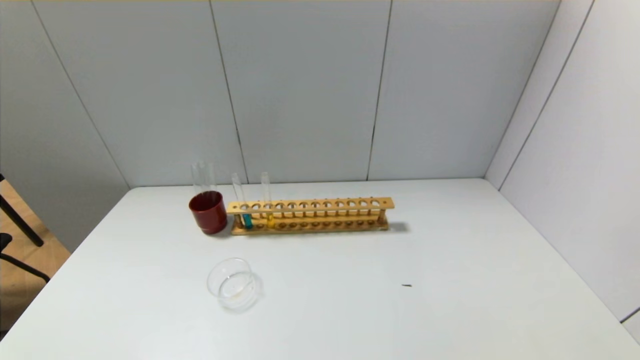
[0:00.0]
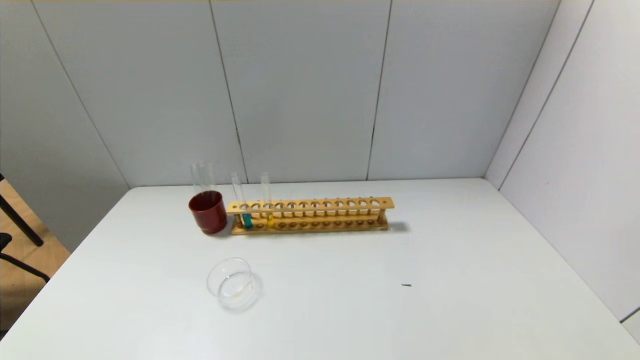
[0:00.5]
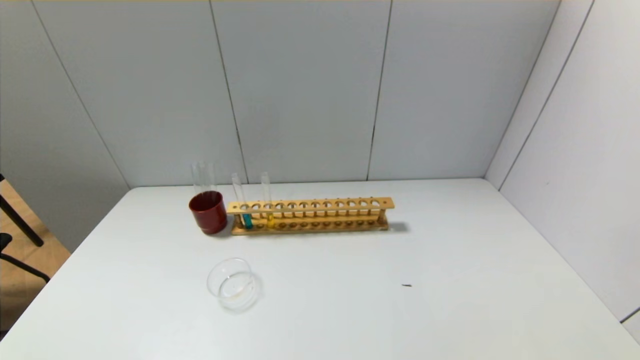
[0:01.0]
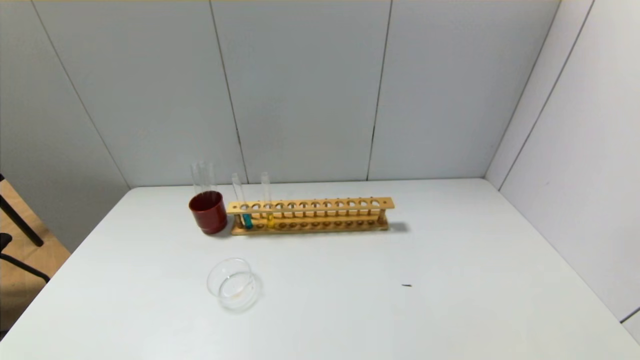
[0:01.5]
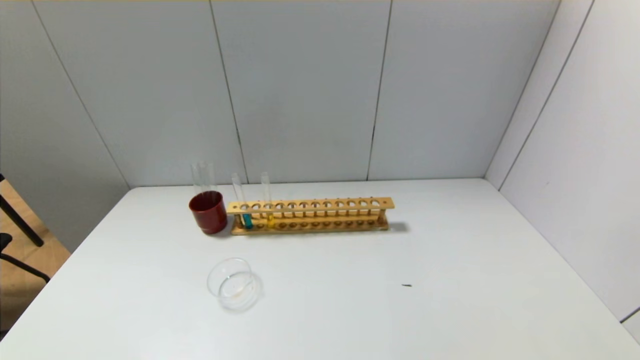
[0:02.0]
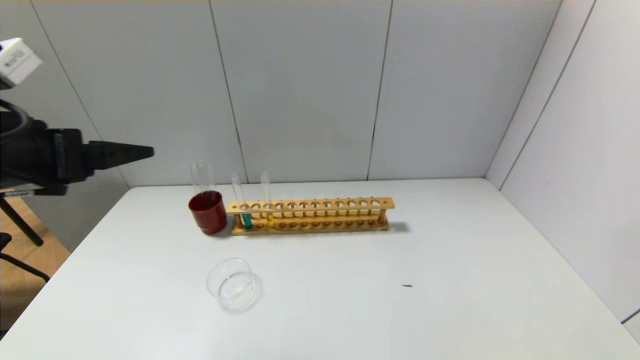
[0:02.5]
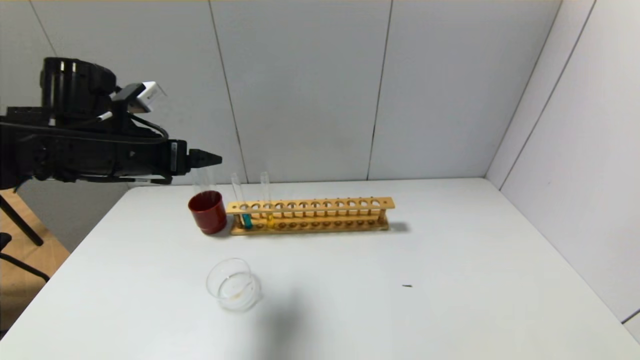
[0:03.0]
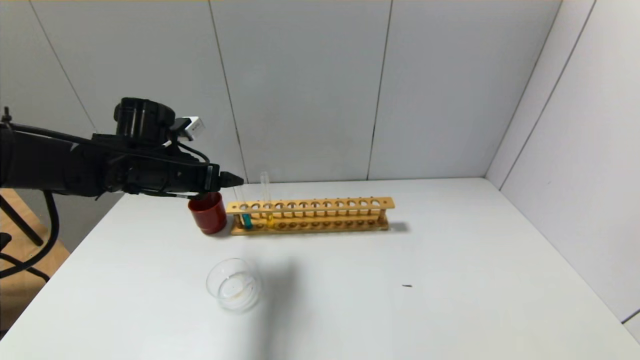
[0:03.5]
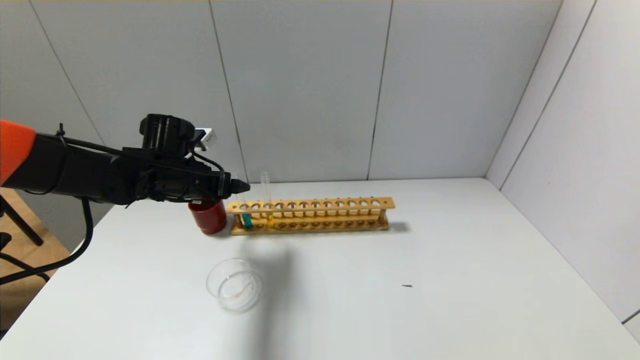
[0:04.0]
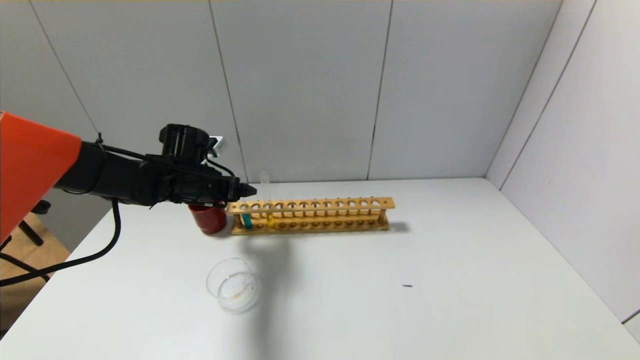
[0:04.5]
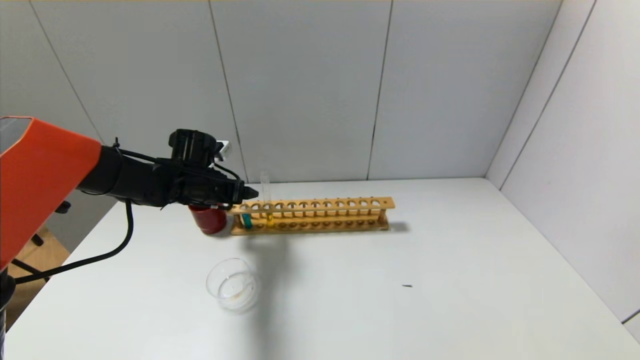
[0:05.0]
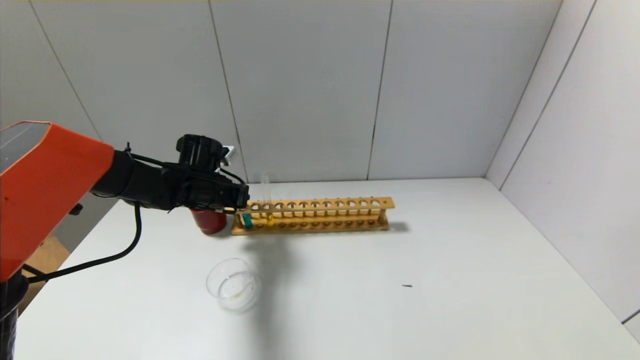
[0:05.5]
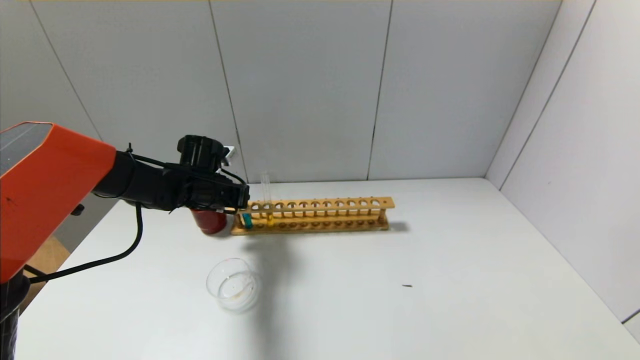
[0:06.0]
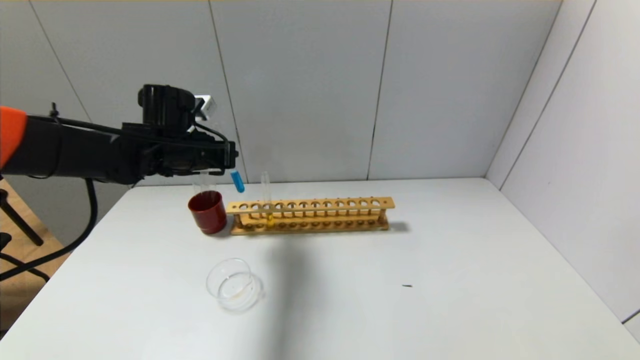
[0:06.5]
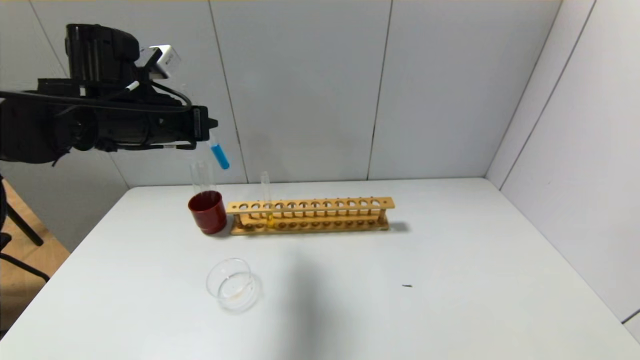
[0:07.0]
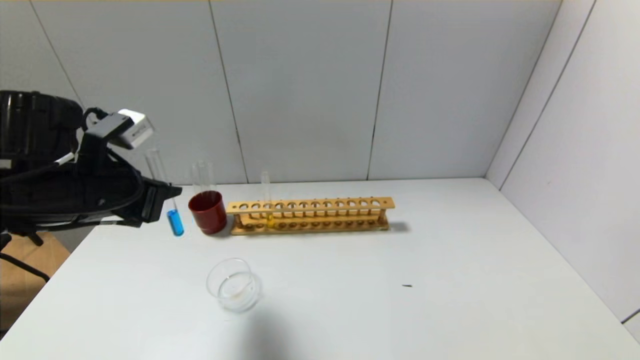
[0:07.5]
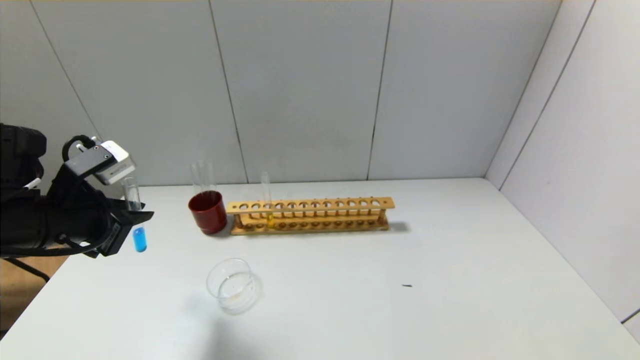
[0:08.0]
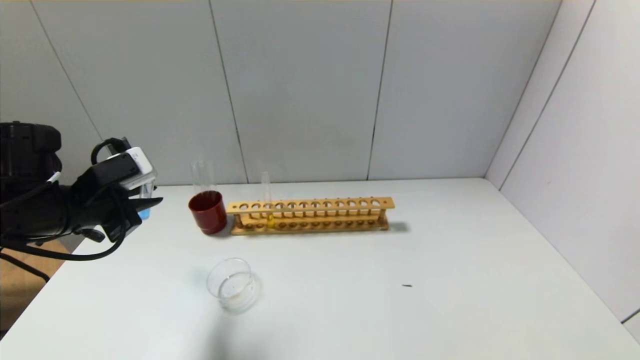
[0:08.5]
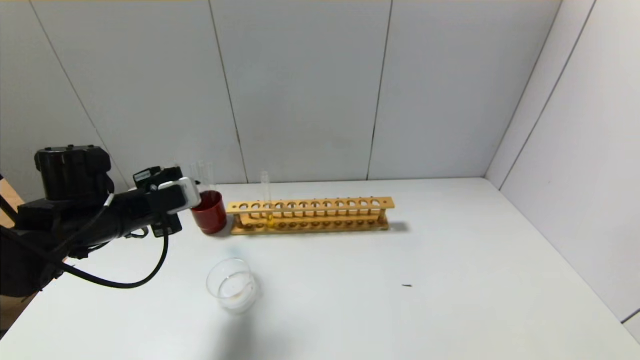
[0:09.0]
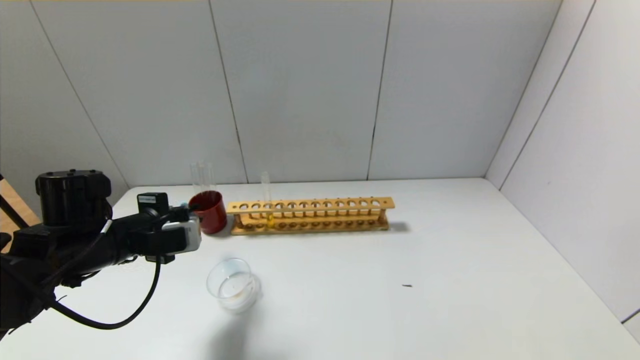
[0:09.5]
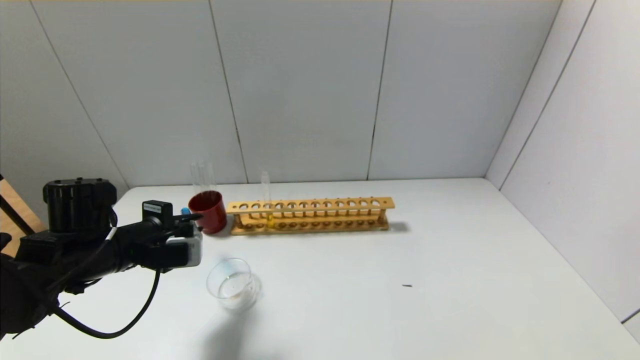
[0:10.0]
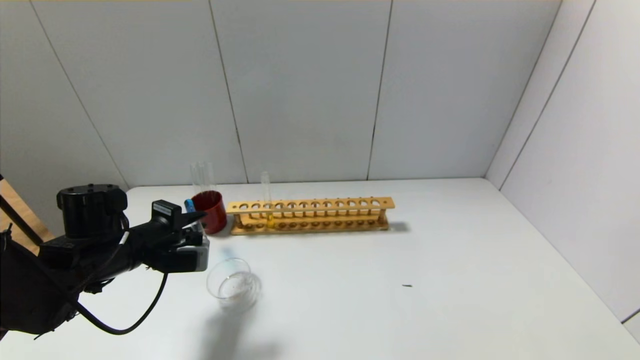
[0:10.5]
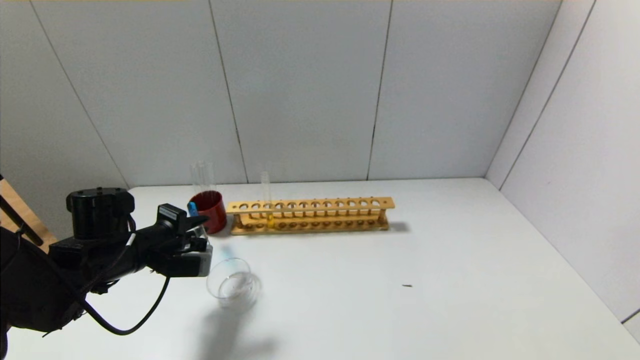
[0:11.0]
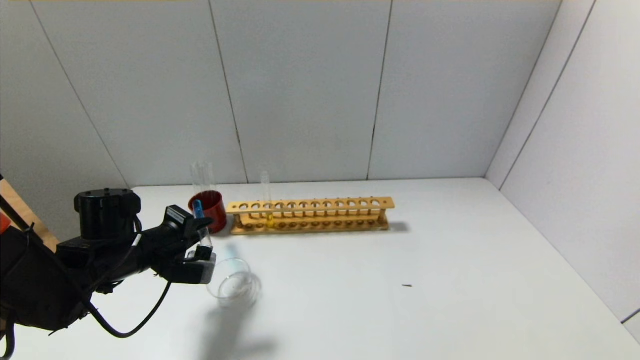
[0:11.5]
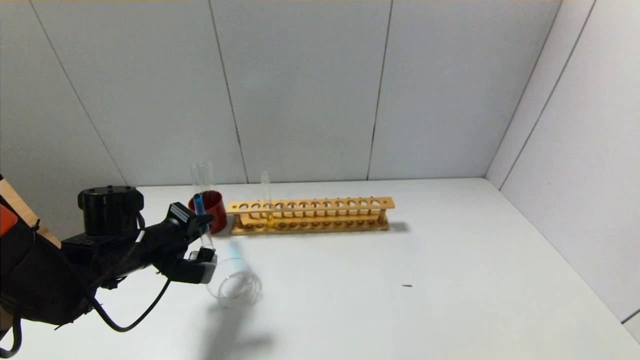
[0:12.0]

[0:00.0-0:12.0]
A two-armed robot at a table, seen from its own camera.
Step, 0:00.0 to 0:05.5: Grasp the blue reagent with the left gripper.
0:02.0 to 0:04.0: The left gripper goes approximately 40 cm forward.
0:04.0 to 0:06.0: The left gripper travels downward by about 5 cm, and closes.
0:06.0 to 0:08.0: The left gripper heads backward, to the left and upward, covering approximately 25 cm.
0:08.0 to 0:10.0: The left gripper travels downward by approximately 10 cm.

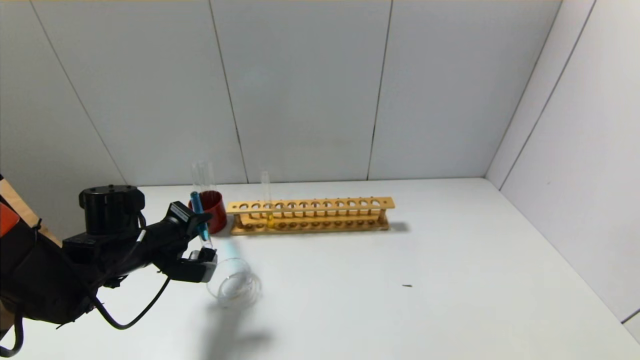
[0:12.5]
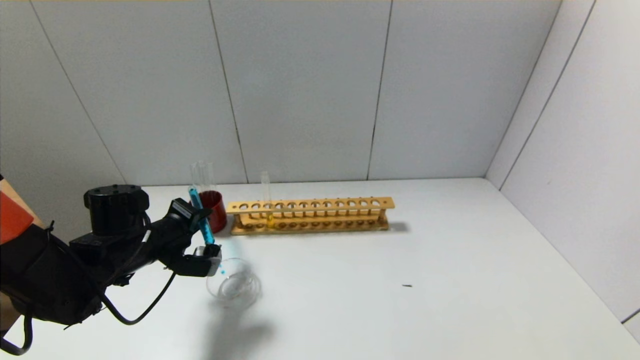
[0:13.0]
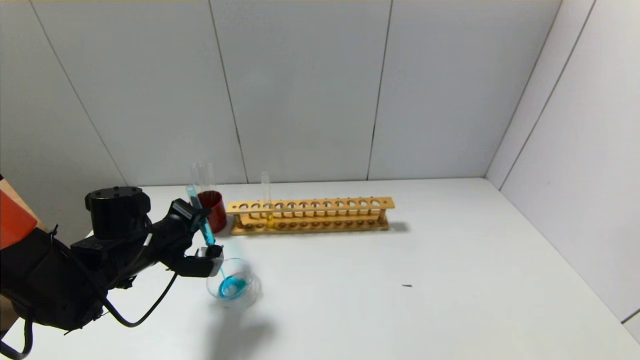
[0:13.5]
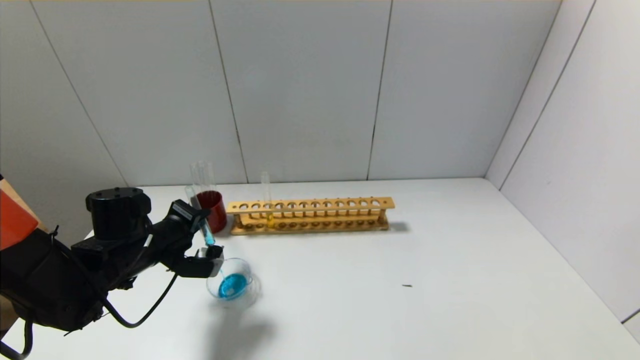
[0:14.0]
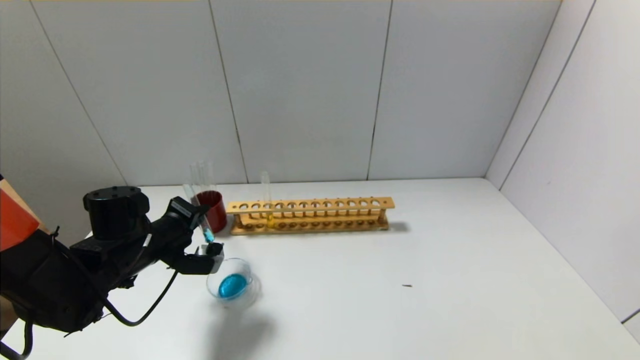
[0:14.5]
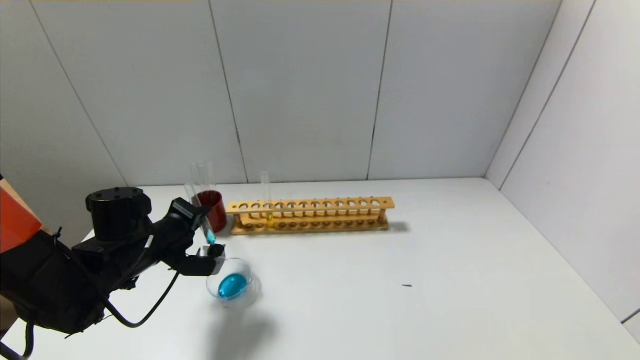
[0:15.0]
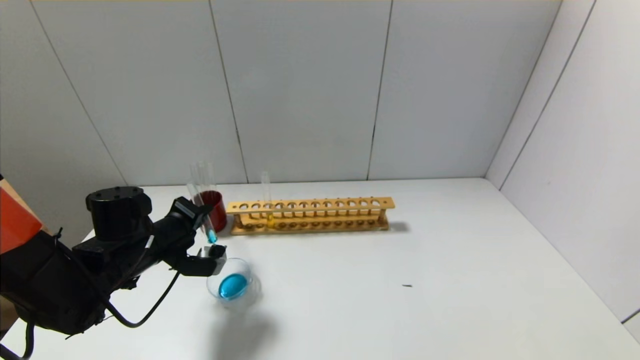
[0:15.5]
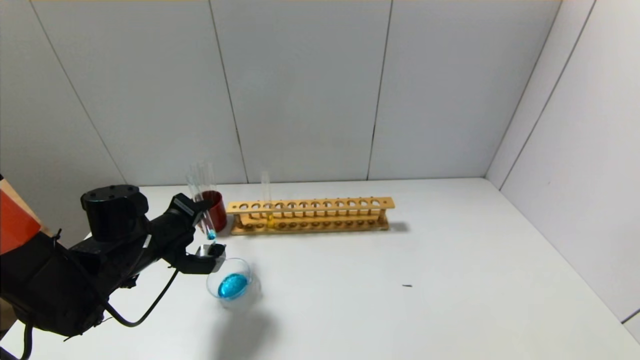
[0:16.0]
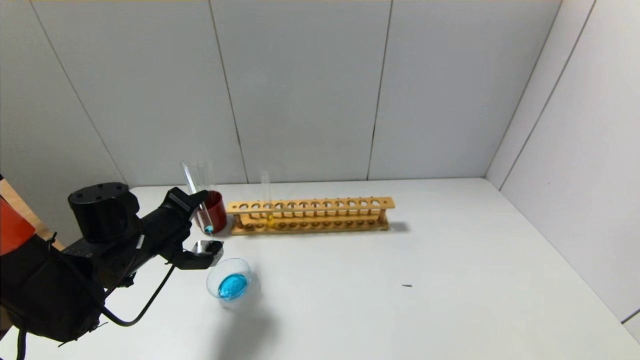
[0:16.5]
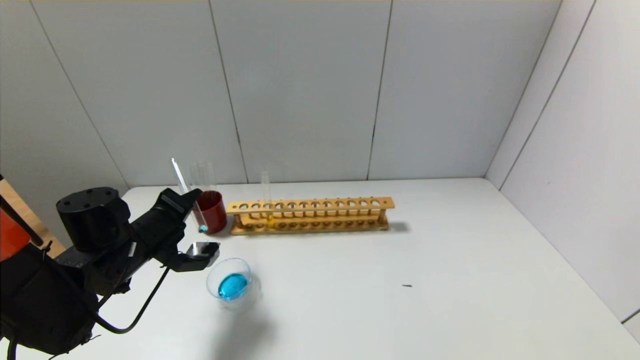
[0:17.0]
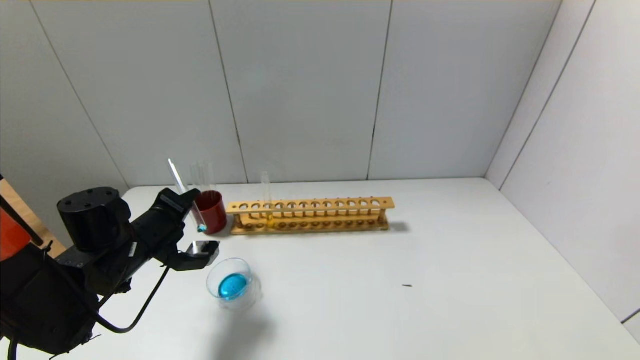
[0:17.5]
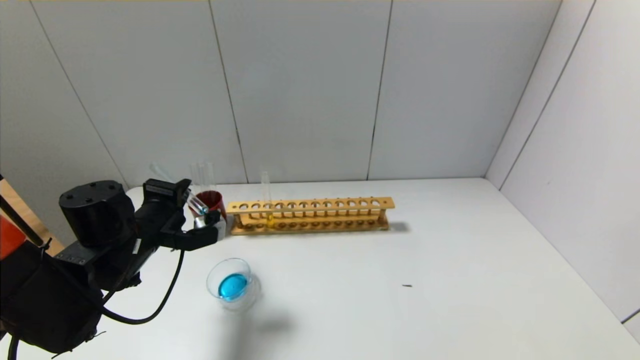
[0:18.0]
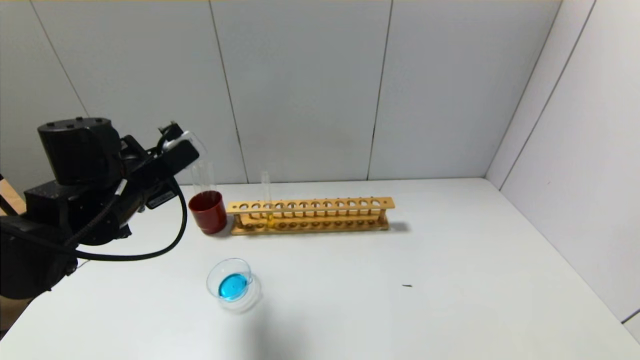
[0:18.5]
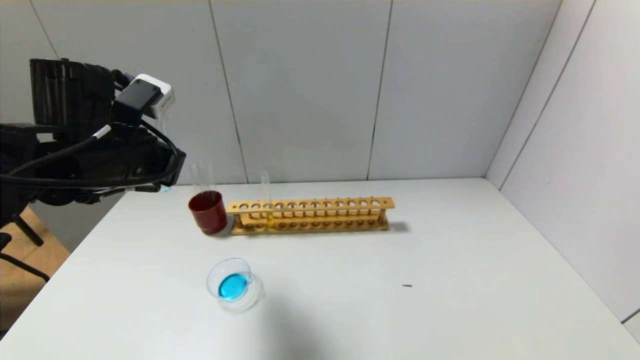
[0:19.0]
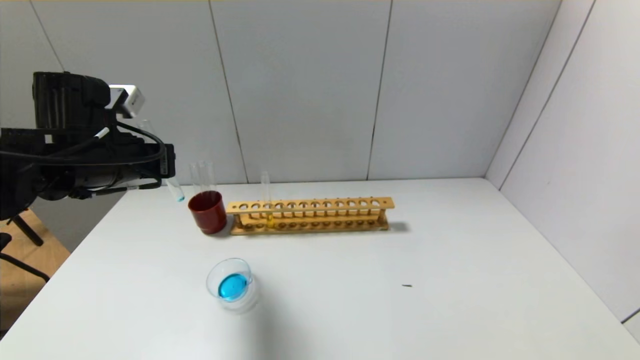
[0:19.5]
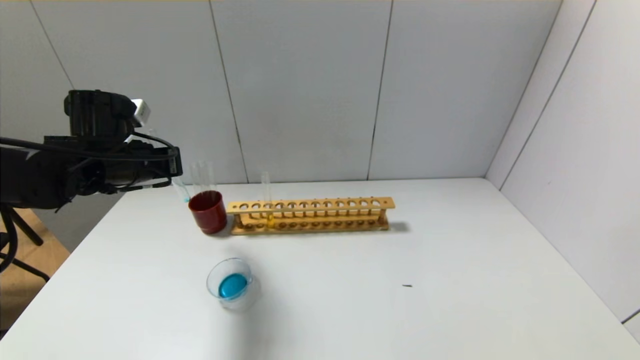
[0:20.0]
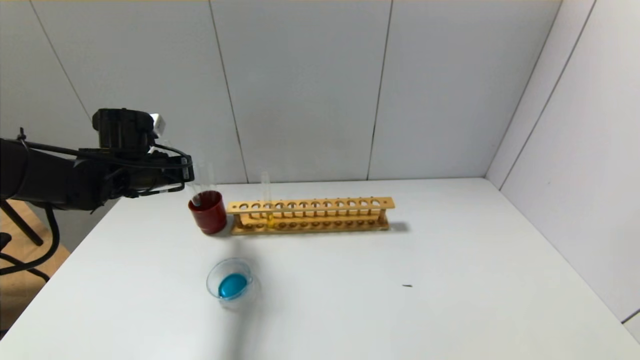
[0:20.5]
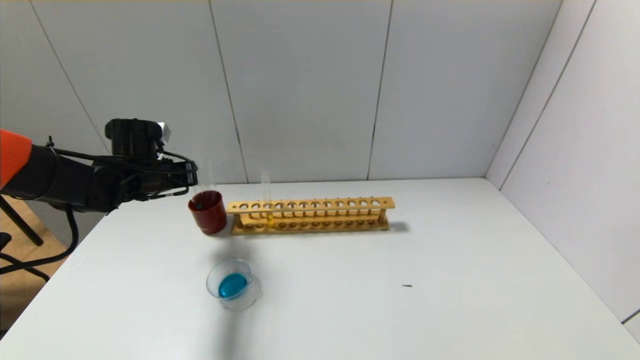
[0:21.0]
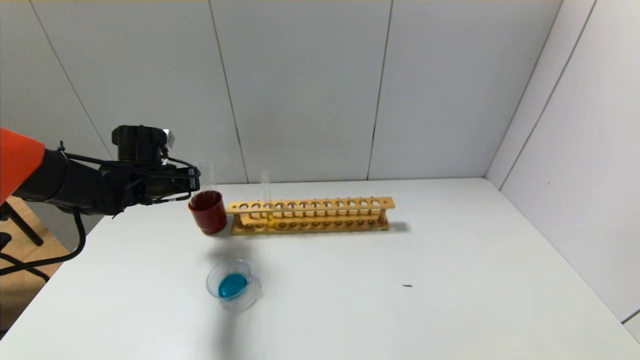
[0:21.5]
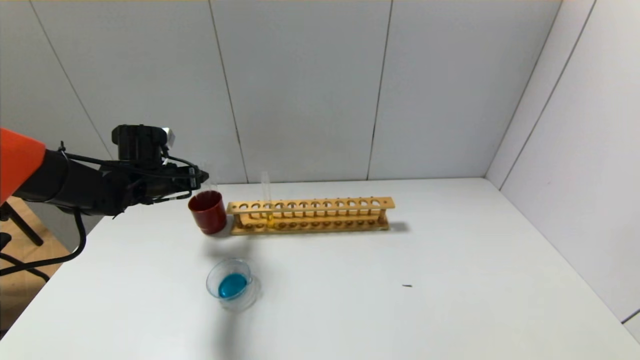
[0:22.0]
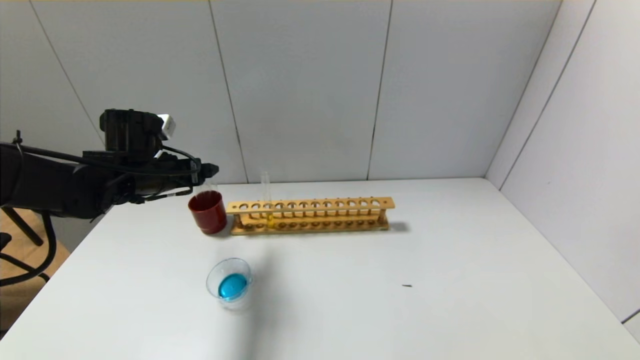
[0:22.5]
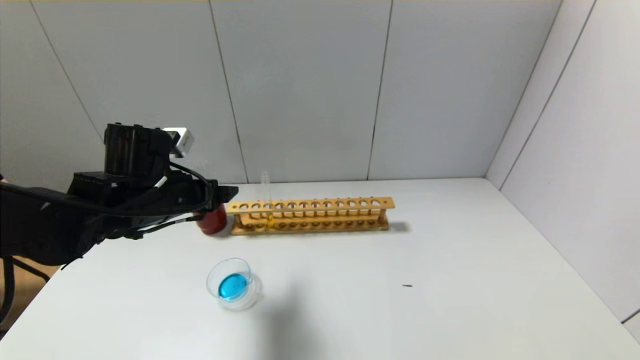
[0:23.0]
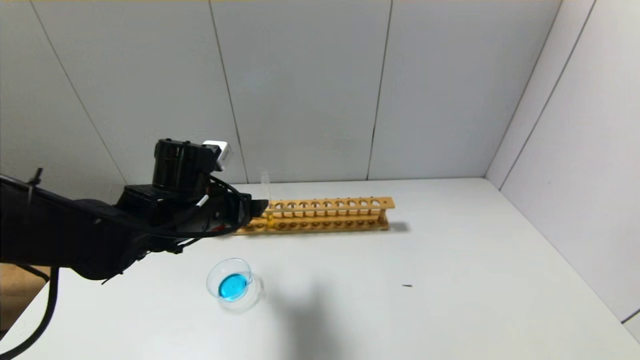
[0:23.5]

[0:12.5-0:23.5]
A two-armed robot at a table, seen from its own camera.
Step, 0:12.5 to 0:17.5: Pour the blue reagent into the graduated cylinder with the left gripper.
Step, 0:18.0 to 0:21.5: Place the test tube into the brown cup with the left gripper.
0:12.5 to 0:16.0: There are only small adjustments of the grippers.
0:18.0 to 0:20.0: The left gripper moves upward and forward, some 10 cm.
0:20.0 to 0:21.5: The left gripper moves downward and forward, approximately 10 cm.
0:21.5 to 0:23.5: The left gripper goes some 15 cm to the right and backward, and opens its fingers.
